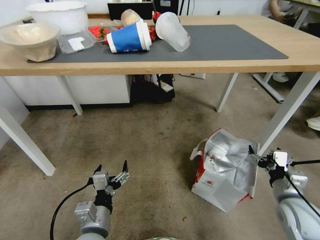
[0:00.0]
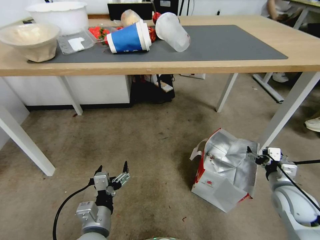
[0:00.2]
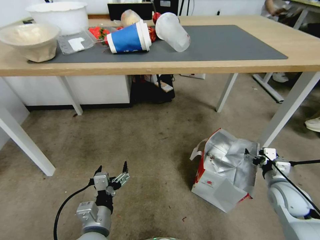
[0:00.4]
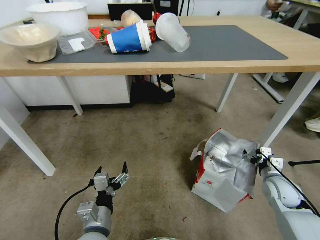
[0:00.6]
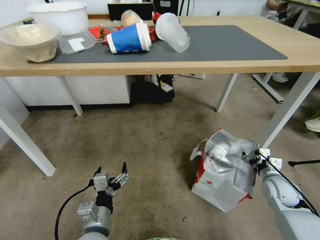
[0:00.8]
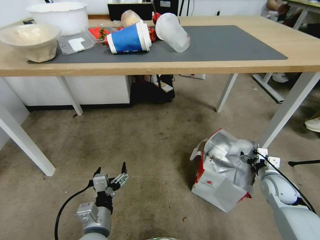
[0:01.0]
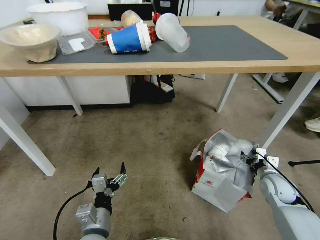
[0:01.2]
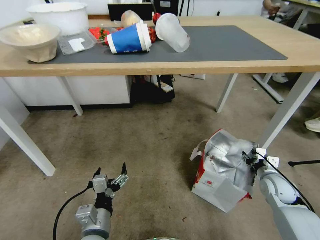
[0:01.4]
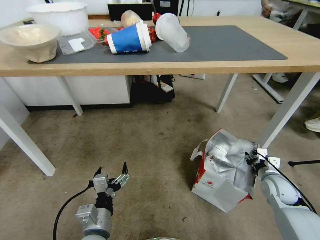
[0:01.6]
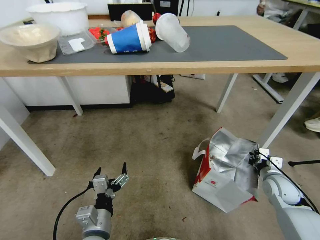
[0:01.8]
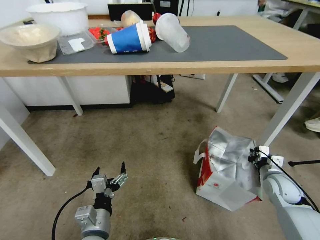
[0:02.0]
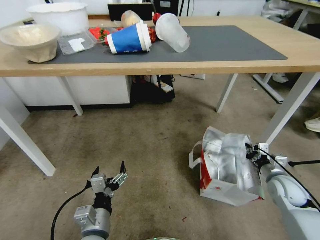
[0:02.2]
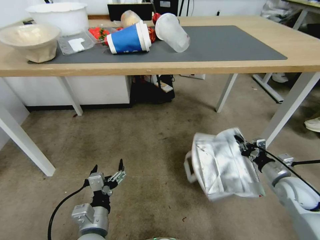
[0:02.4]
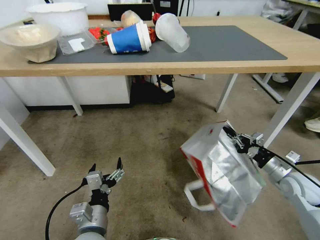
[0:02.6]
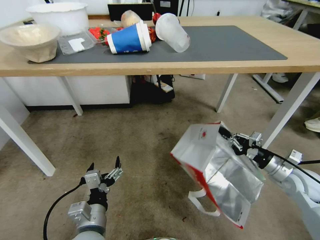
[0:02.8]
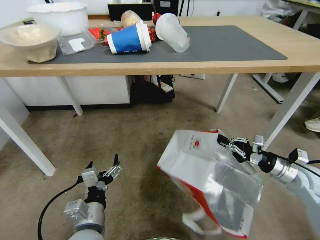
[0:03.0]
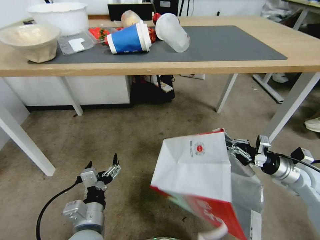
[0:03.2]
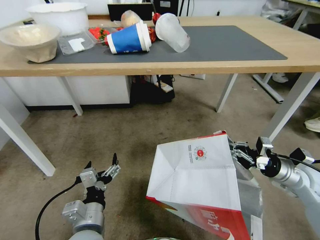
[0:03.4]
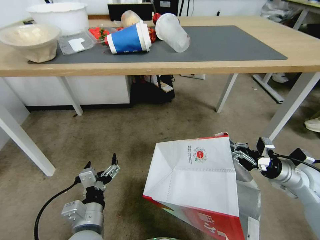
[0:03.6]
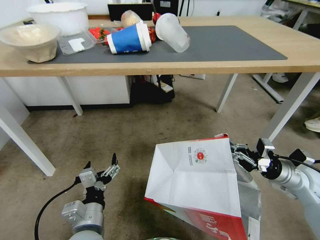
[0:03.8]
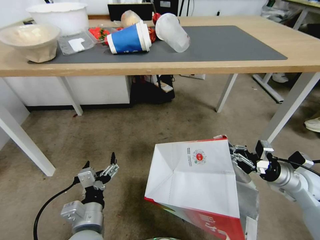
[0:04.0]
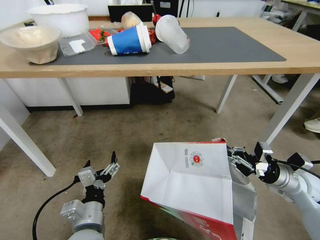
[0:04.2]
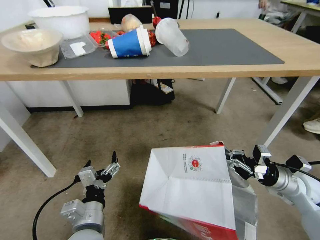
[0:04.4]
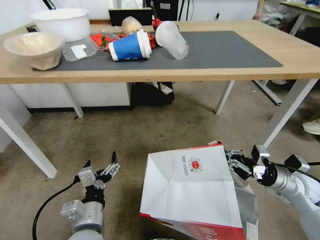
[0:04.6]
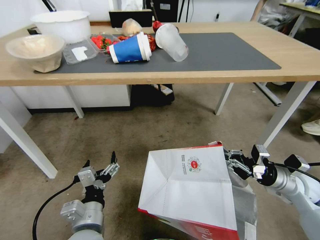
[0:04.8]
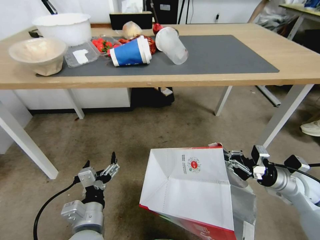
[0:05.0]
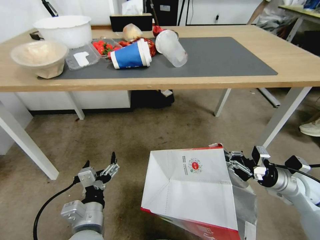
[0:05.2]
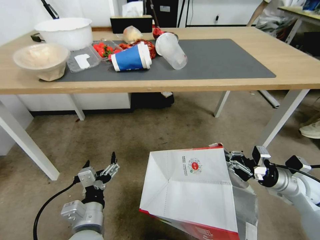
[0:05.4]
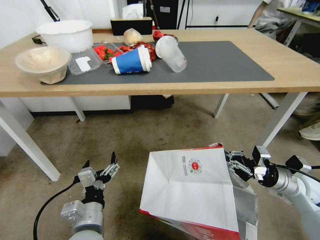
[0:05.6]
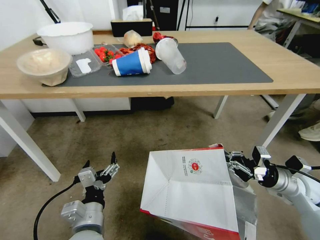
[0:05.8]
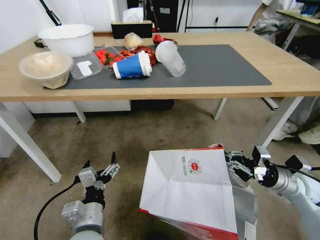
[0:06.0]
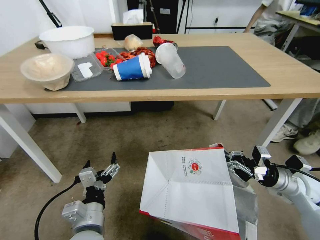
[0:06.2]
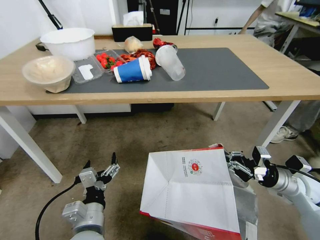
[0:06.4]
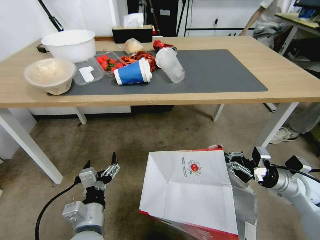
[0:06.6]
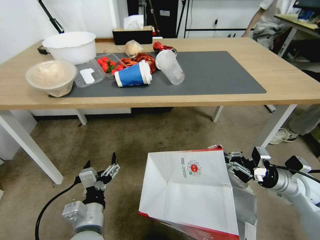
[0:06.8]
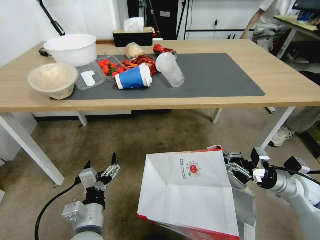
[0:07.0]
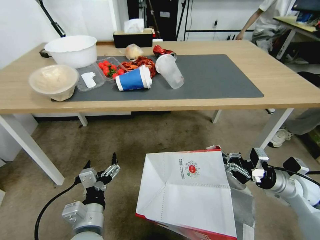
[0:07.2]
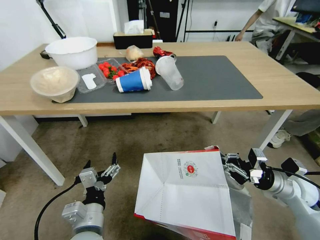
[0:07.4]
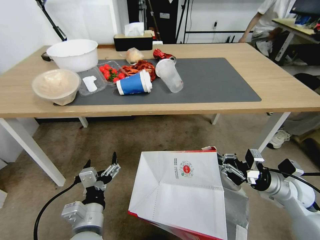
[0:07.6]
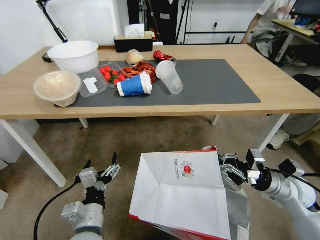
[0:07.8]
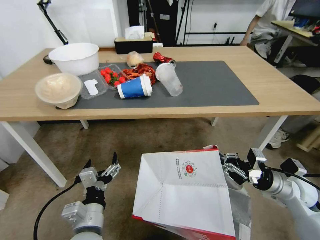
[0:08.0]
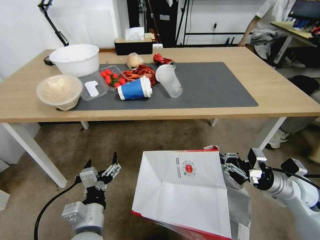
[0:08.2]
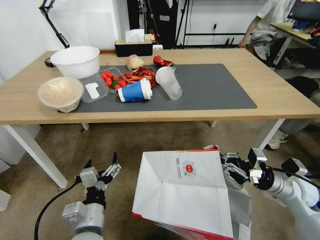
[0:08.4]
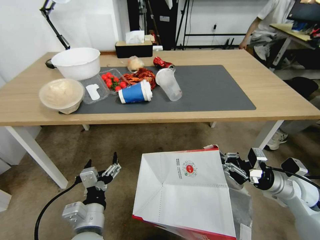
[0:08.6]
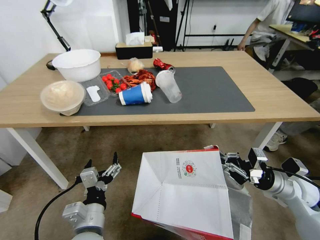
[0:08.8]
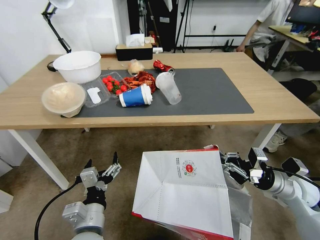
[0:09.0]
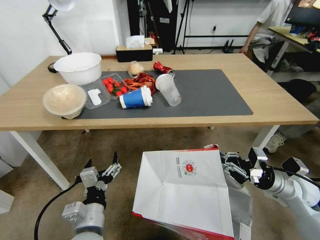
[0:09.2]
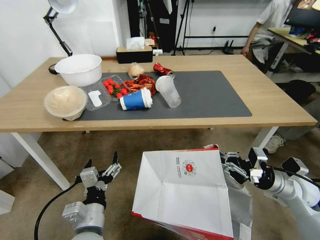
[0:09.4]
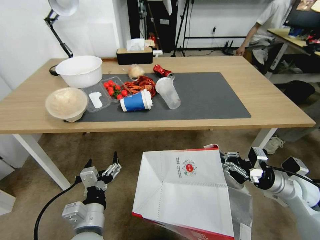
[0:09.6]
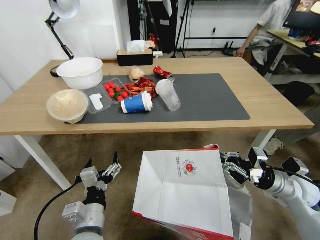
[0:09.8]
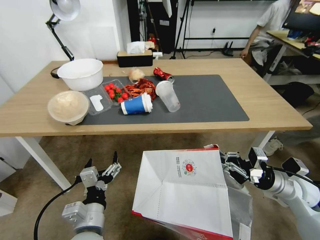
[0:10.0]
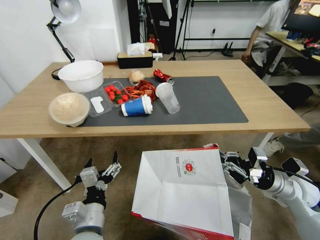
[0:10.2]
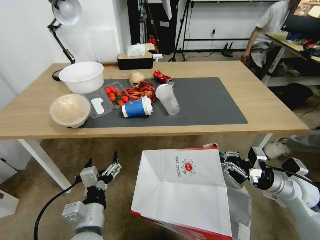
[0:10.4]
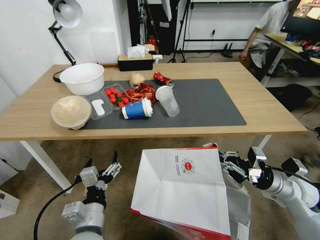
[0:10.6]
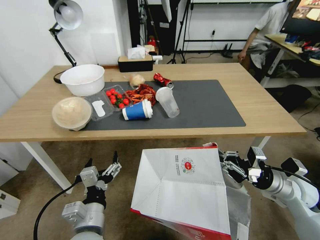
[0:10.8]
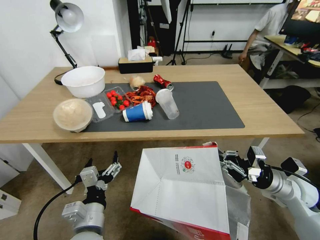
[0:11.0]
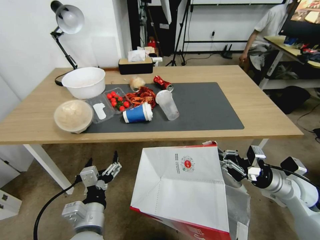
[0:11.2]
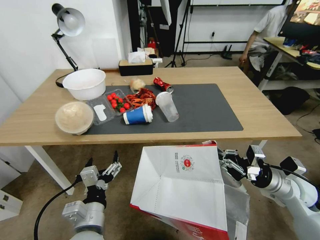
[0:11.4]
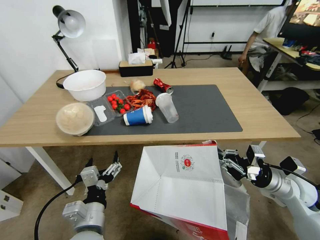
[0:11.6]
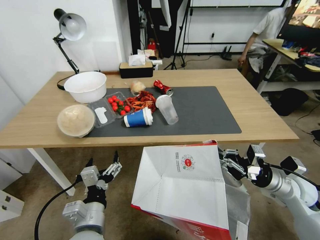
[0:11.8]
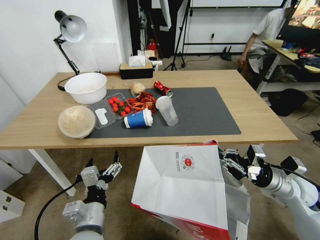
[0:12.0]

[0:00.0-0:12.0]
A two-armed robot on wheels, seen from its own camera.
Task of the whole recording: Pick up the food delivery bag from the floor and place it on the table.
0:00.0 to 0:01.6: The right gripper shifts approximately 10 cm forward and downward, and closes its fingers.
0:01.6 to 0:03.0: The right gripper moves upward, about 10 cm.

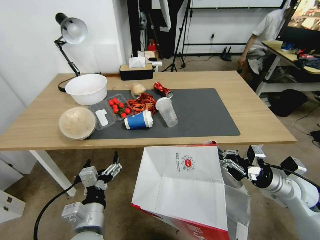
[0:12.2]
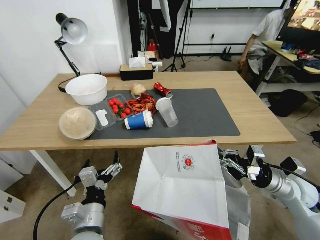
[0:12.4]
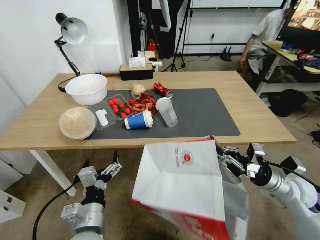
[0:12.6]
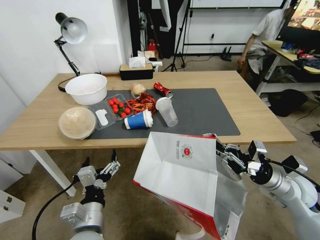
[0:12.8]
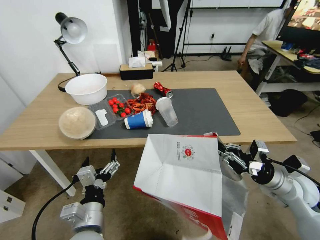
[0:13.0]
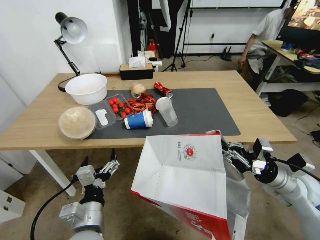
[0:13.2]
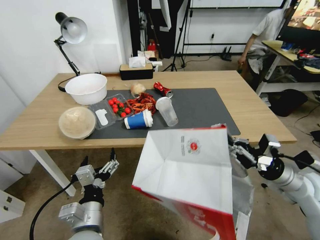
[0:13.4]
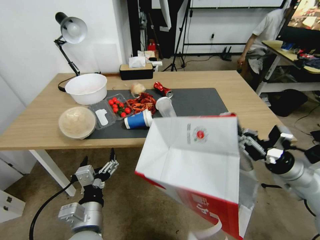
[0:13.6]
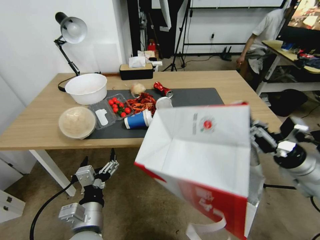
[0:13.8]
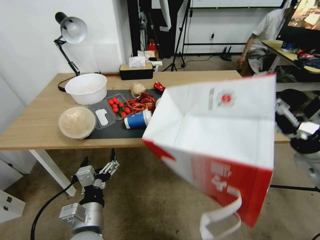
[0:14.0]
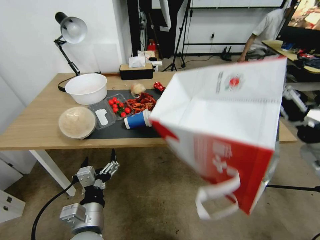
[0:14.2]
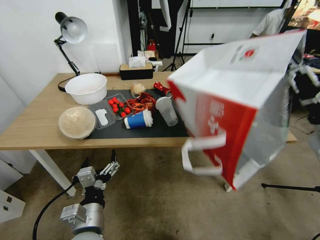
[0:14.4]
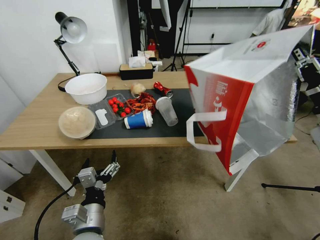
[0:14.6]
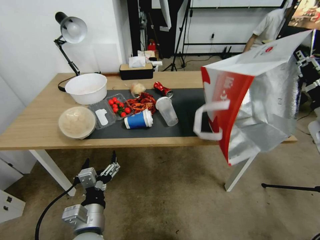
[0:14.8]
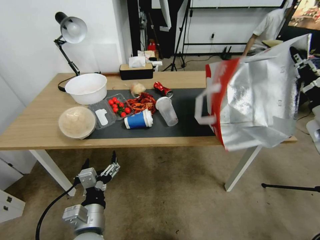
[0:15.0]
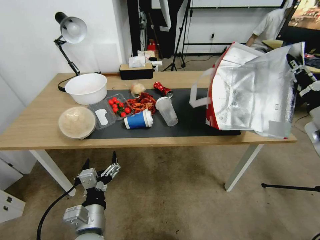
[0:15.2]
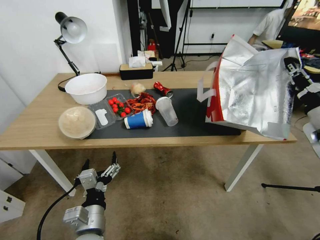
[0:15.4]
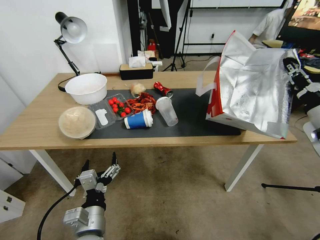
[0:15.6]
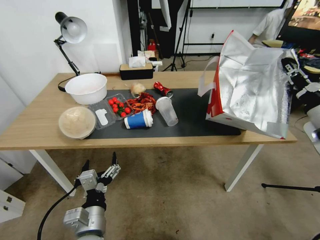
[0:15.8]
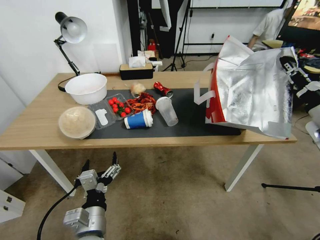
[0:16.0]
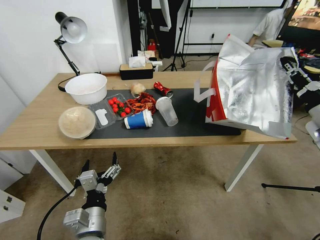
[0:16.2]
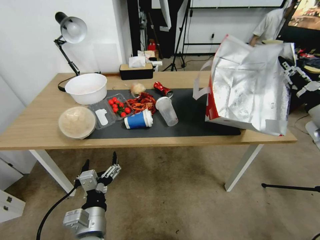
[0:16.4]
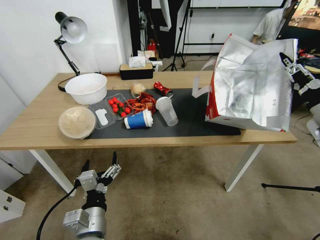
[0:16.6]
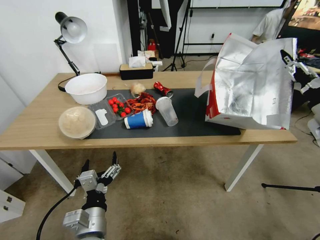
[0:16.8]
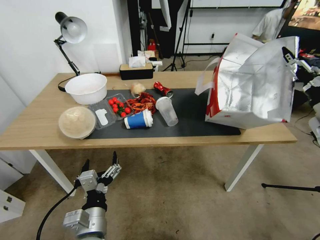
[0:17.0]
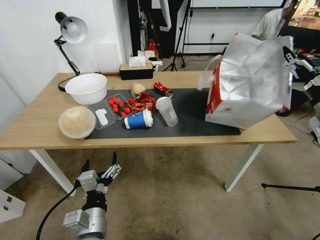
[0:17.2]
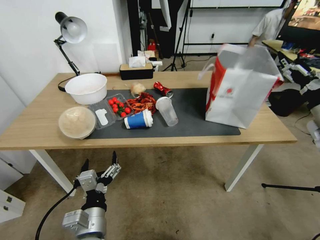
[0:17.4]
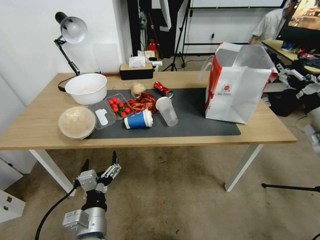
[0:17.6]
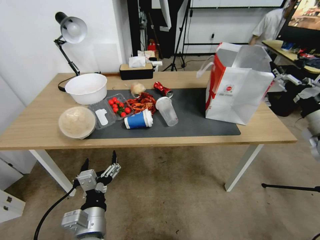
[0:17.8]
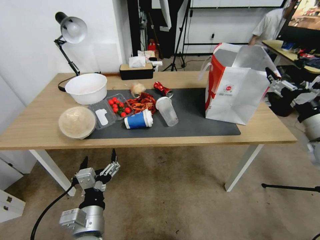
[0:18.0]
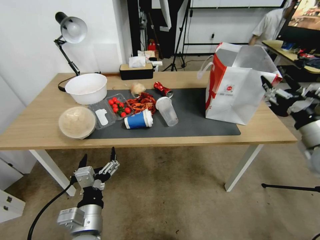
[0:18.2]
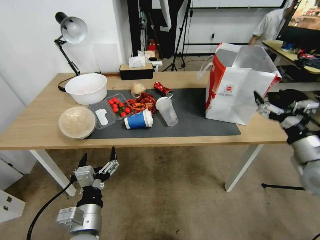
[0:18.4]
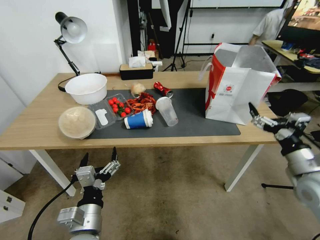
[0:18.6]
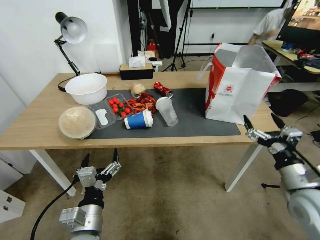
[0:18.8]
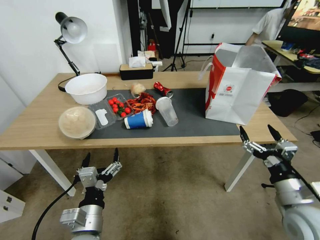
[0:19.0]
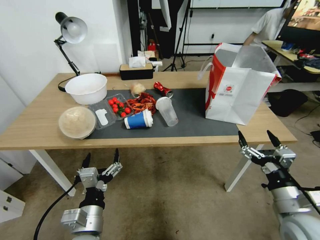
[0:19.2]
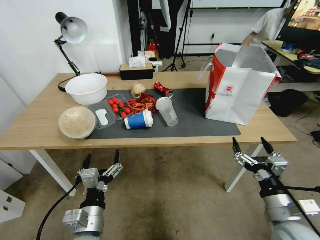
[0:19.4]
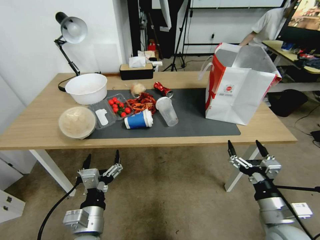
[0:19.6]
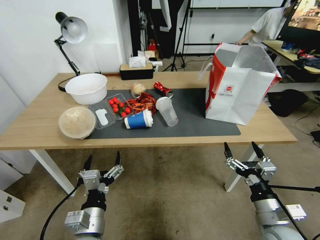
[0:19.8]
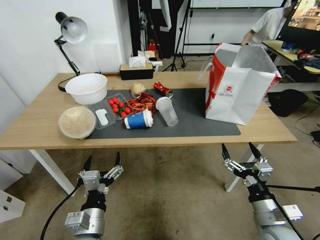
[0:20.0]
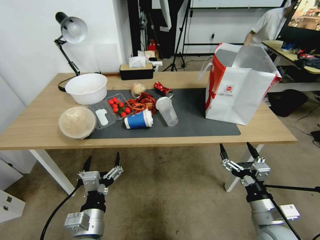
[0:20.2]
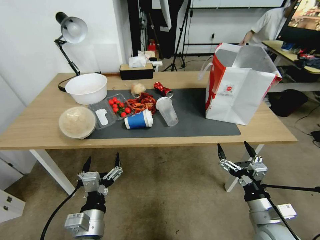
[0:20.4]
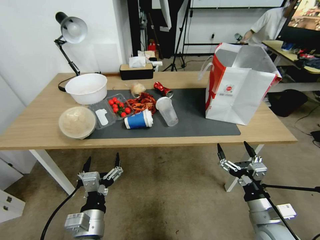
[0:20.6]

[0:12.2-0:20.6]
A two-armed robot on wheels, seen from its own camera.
Task of the whole recording: Pick up the food delivery bag from the floor and place it on the table.
0:12.2 to 0:13.6: The right gripper shifts some 5 cm upward.
0:13.6 to 0:15.0: The right gripper is displaced upward by approximately 15 cm.
0:15.0 to 0:16.4: The grippers make only small movements.
0:16.4 to 0:17.8: The right gripper opens its fingers.
0:17.8 to 0:19.2: The right gripper is displaced backward, downward and to the left by roughly 20 cm.
0:19.2 to 0:20.6: The right gripper shifts roughly 5 cm downward.

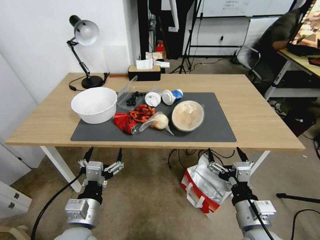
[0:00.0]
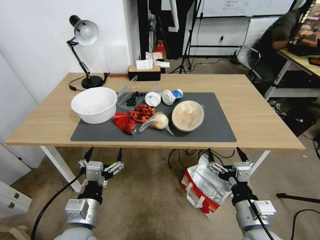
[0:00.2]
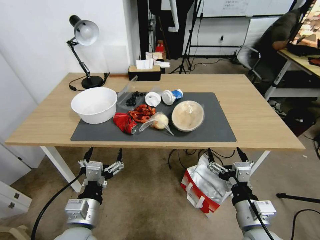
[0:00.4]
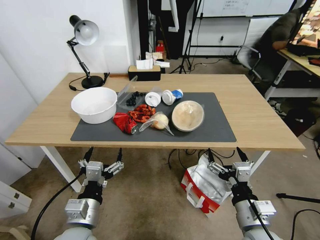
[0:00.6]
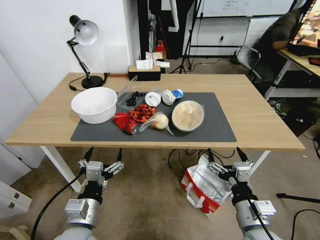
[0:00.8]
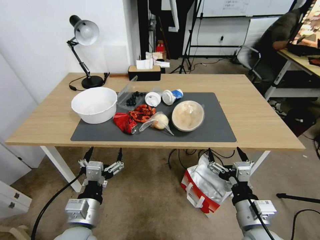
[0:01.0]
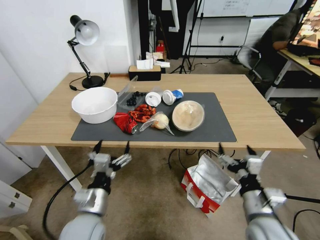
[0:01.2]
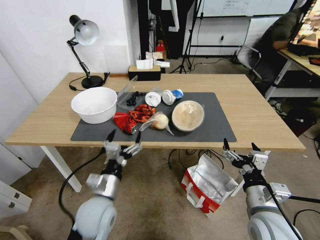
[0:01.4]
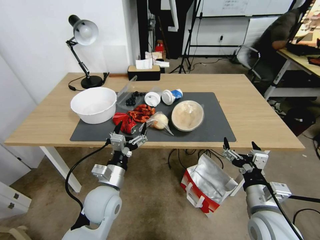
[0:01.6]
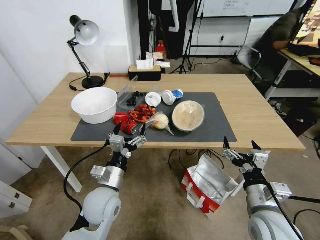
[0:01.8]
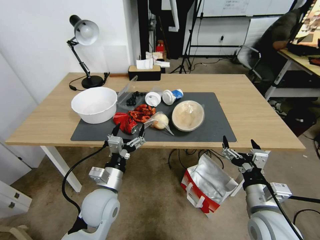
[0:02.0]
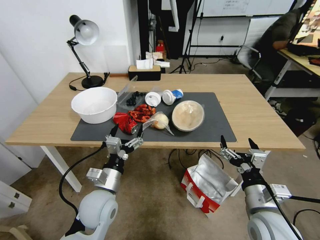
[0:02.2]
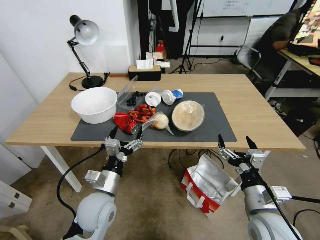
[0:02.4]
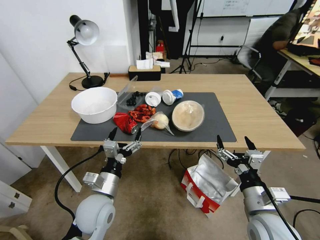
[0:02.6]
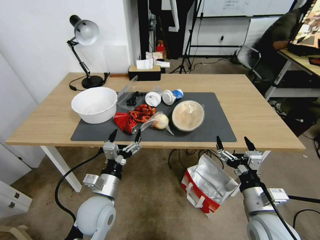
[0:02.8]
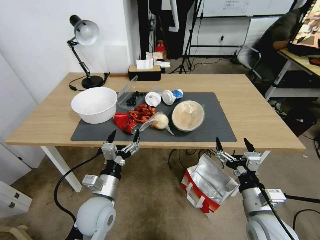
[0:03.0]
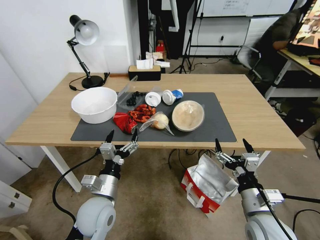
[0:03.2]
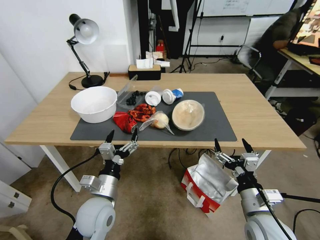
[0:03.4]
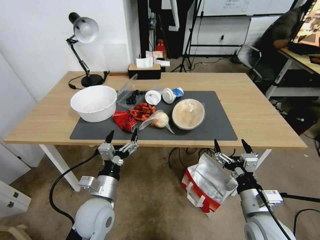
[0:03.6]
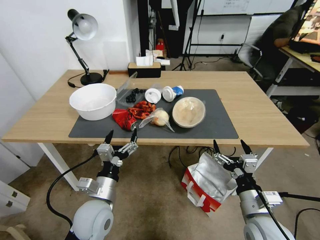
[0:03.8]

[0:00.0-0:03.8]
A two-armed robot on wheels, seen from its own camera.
Task of the whole recording: Pick up the food delivery bag from the floor and place it on the table.
0:01.2 to 0:02.6: The left gripper shifts roughly 5 cm forward.
